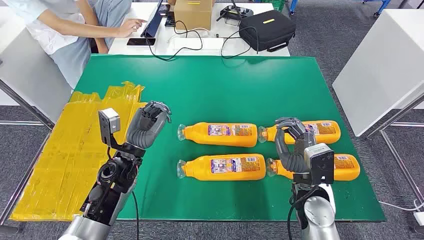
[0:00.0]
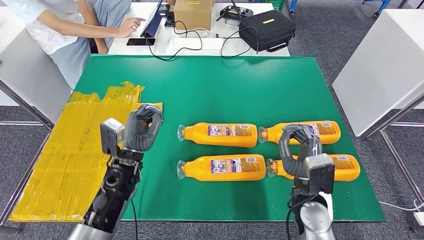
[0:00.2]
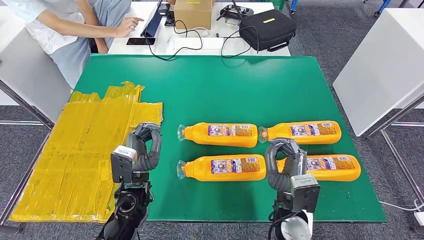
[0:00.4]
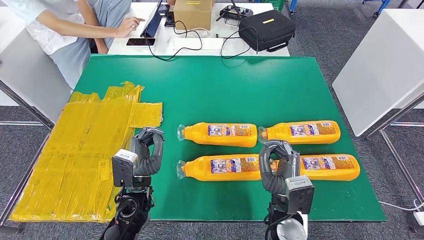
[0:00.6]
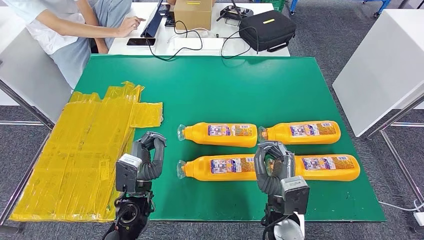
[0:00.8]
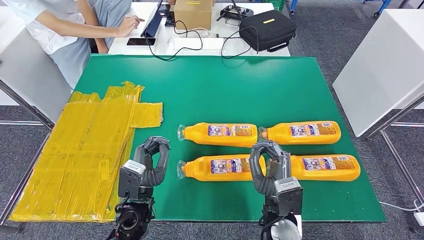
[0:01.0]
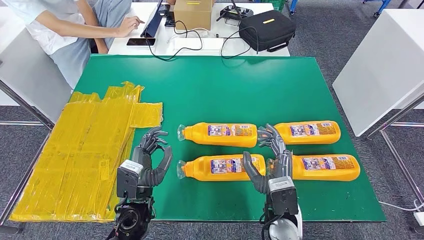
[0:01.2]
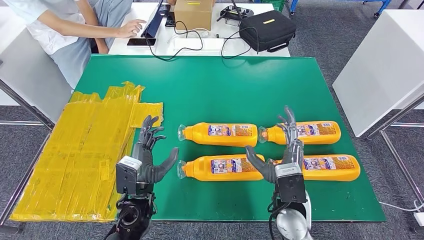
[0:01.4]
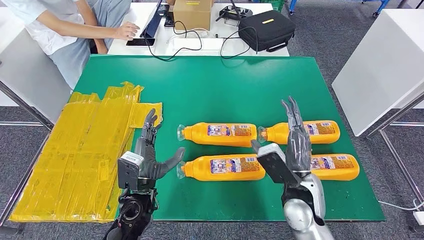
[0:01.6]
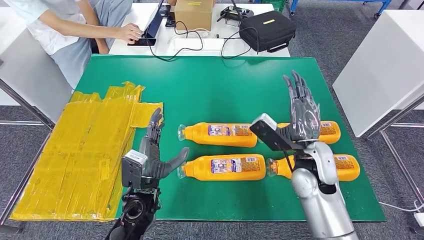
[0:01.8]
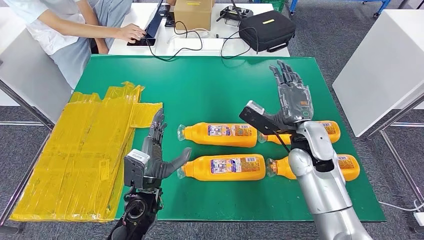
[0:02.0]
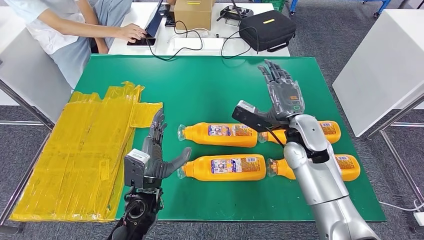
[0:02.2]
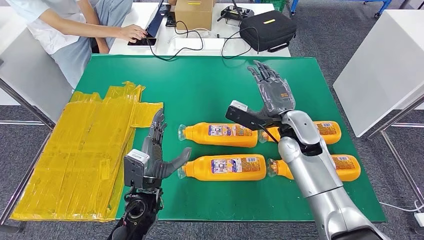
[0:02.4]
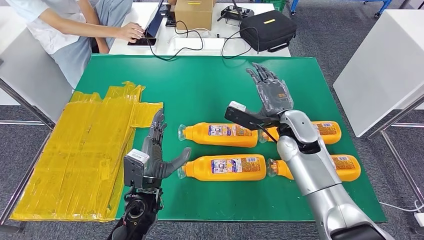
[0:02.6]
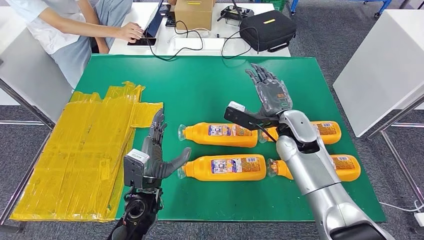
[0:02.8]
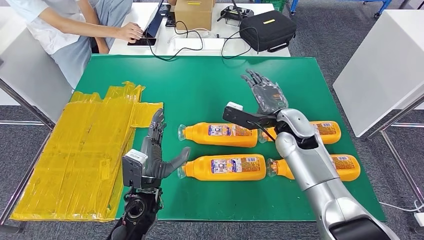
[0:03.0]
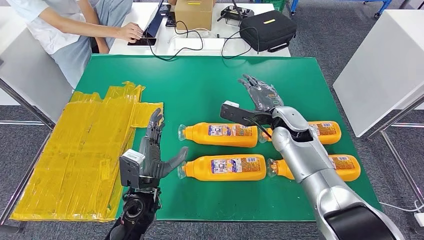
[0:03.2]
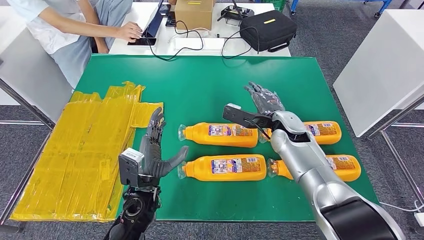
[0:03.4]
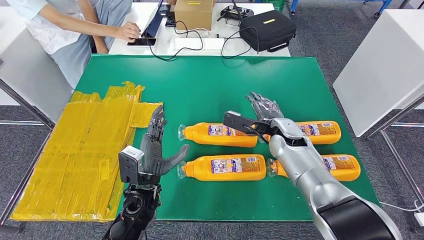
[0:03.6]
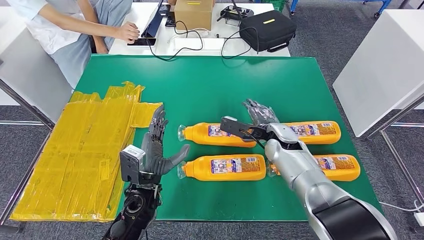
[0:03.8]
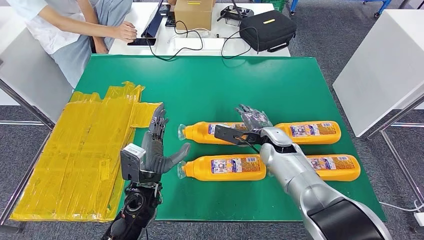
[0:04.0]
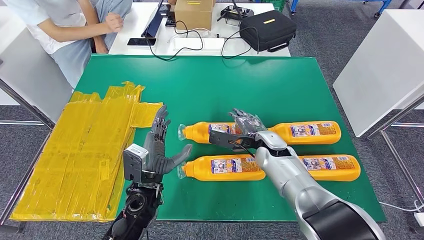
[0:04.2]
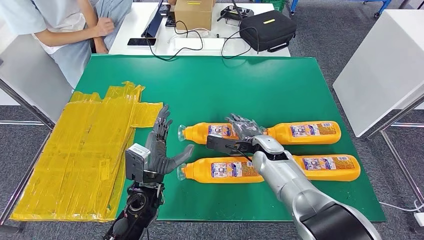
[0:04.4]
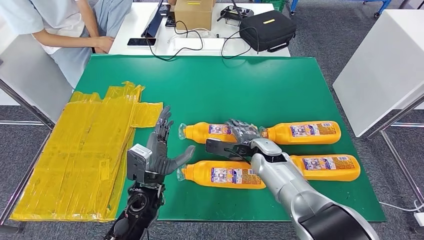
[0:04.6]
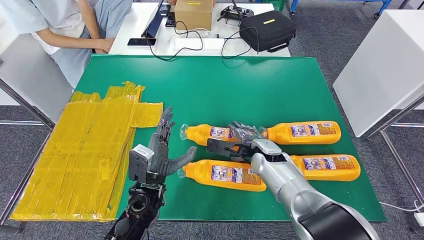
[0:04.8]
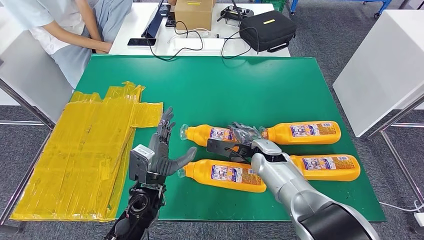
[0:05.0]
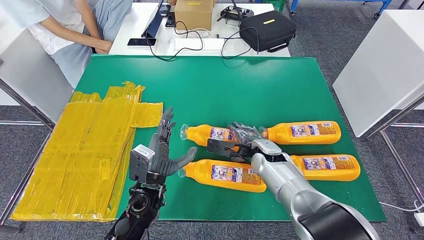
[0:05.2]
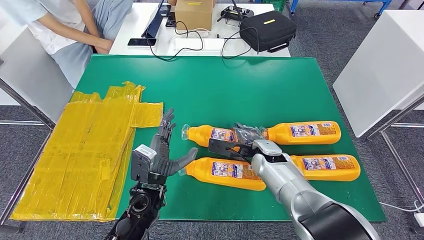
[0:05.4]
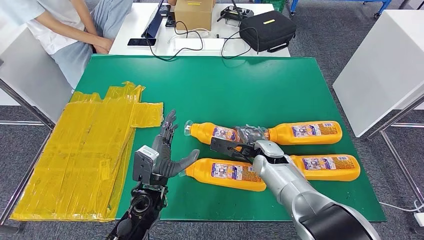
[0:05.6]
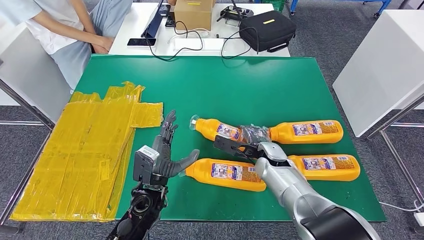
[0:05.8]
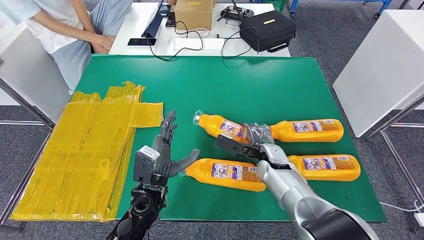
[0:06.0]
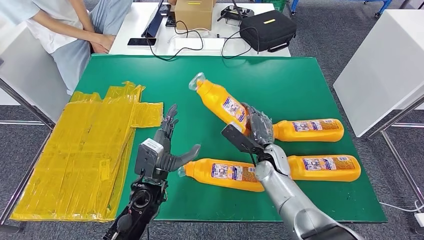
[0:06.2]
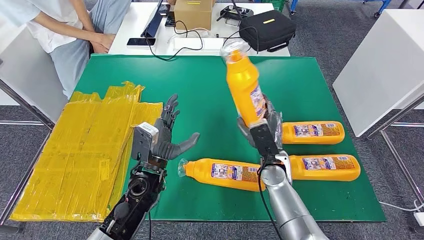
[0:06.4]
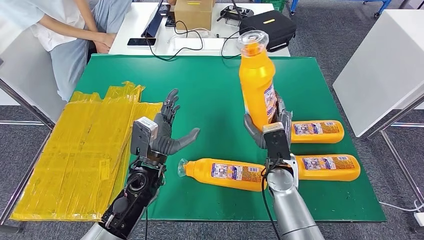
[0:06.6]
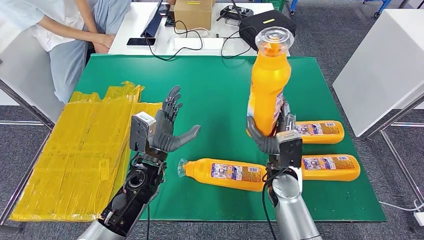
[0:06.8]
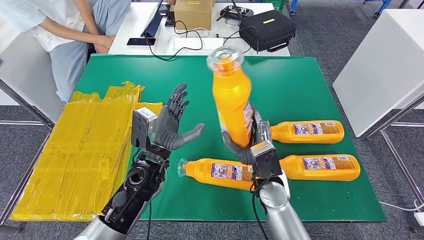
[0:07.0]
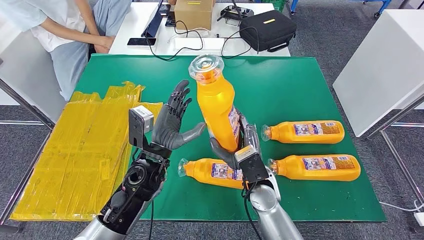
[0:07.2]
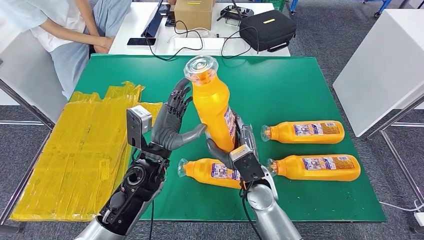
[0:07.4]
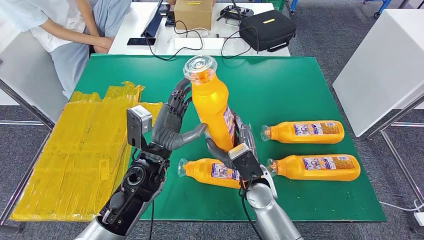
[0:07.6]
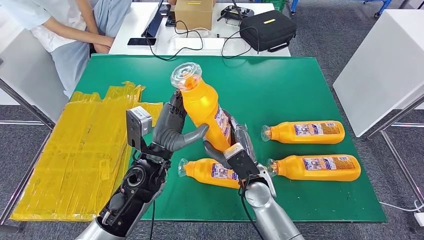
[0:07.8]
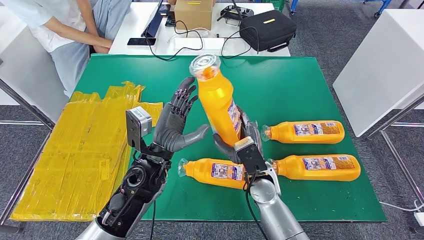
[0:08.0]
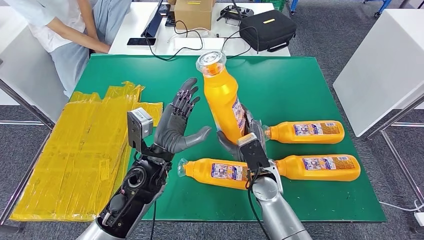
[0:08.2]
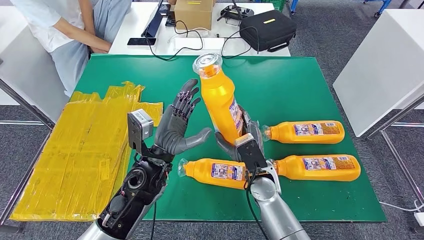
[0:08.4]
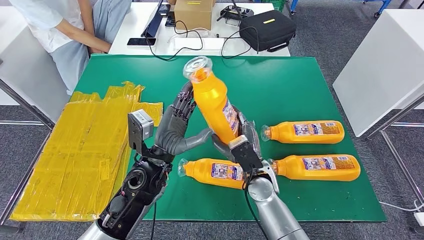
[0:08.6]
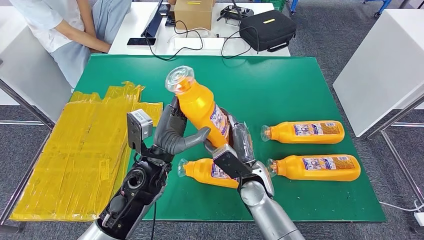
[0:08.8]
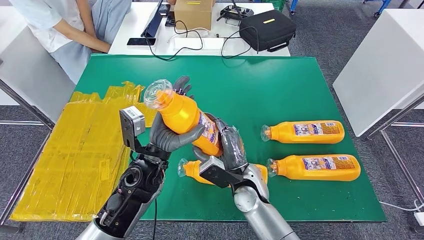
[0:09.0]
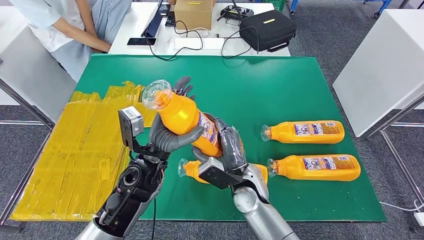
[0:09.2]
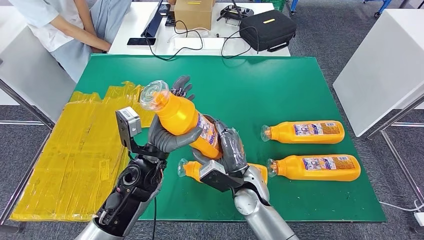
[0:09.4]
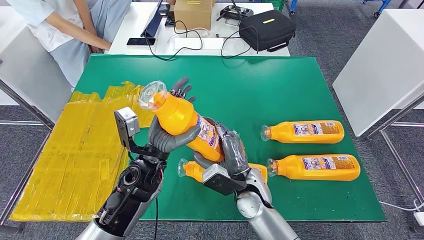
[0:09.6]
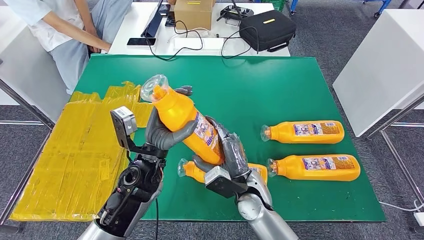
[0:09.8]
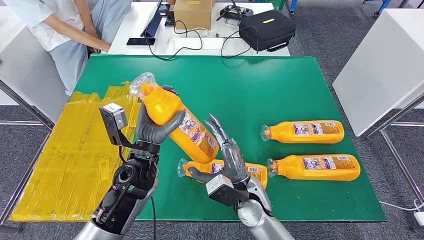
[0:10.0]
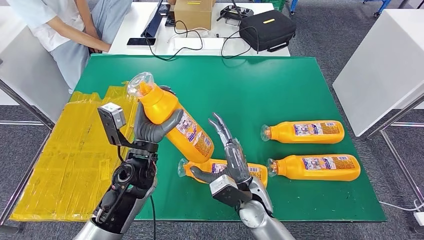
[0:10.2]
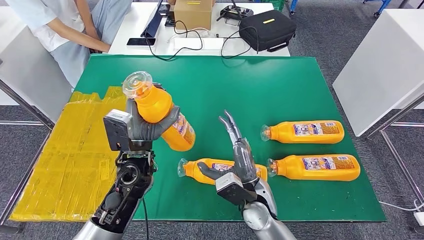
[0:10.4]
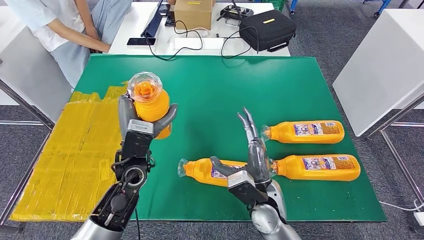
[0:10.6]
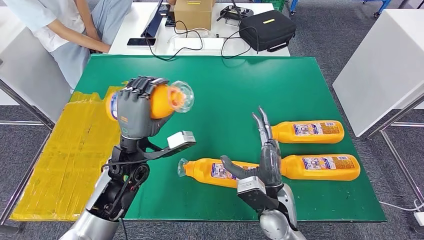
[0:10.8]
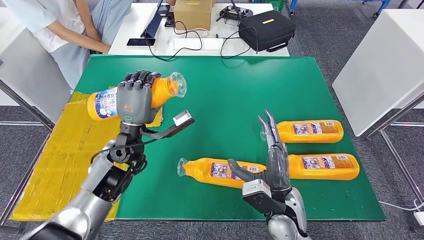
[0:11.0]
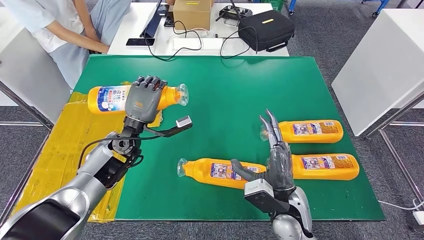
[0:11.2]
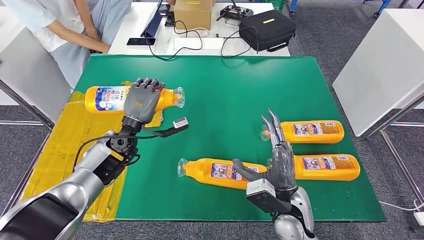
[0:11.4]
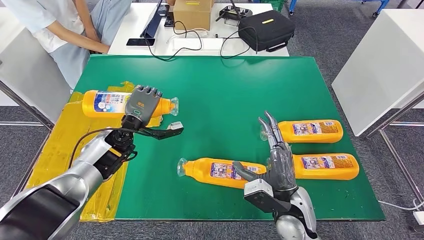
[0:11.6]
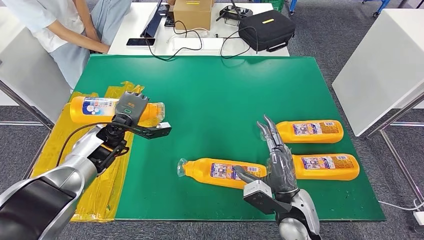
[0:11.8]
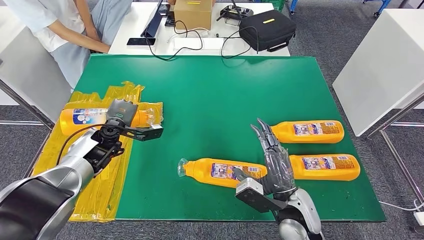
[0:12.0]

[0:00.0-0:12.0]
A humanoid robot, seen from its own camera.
Step, 0:00.0 to 0:06.6: Take the bottle from the table.
0:01.6 to 0:03.0: The right hand goes roughly 15 cm forward.
0:03.0 to 0:04.4: The right hand is displaced downward by some 10 cm.
0:04.4 to 0:06.0: The hands move only a little.
0:06.0 to 0:07.6: The right hand goes about 10 cm backward and to the left. The left hand goes about 10 cm upward.
0:07.6 to 0:09.0: The hands make only small movements.

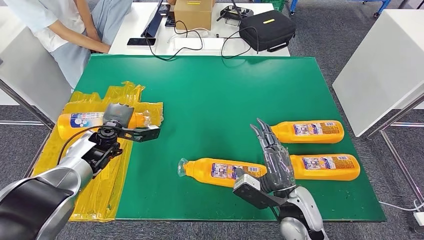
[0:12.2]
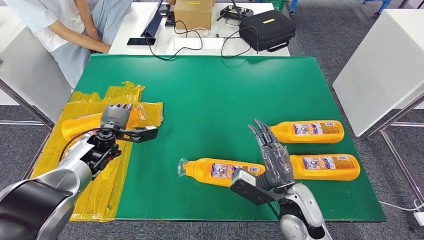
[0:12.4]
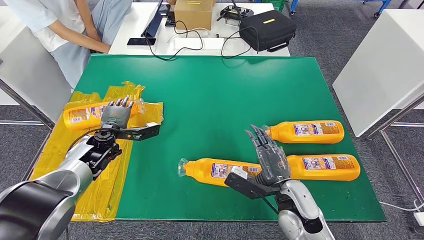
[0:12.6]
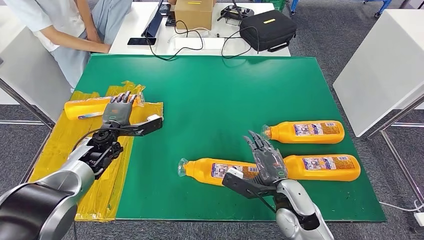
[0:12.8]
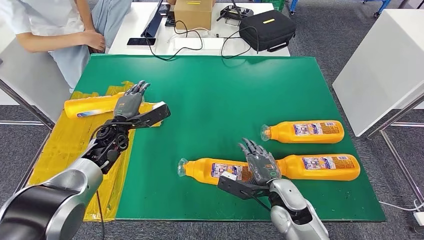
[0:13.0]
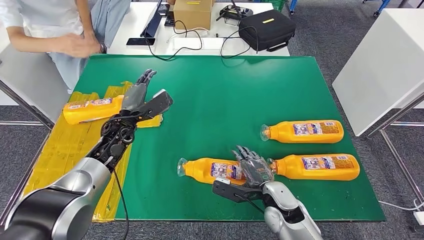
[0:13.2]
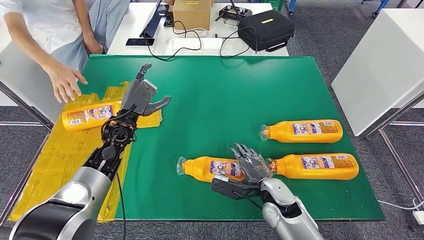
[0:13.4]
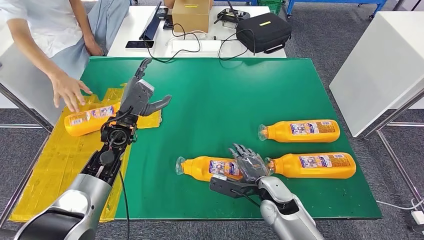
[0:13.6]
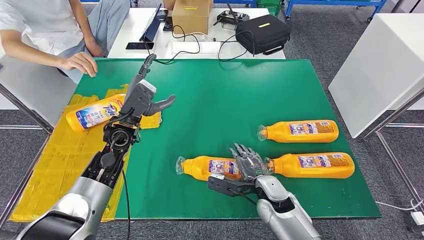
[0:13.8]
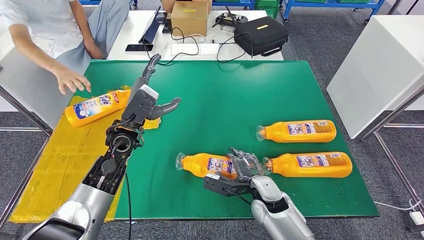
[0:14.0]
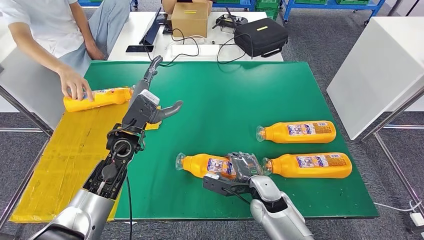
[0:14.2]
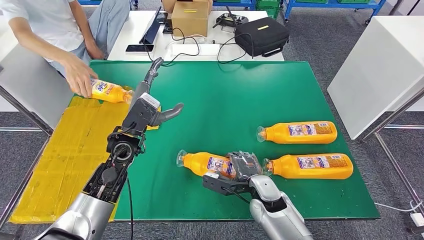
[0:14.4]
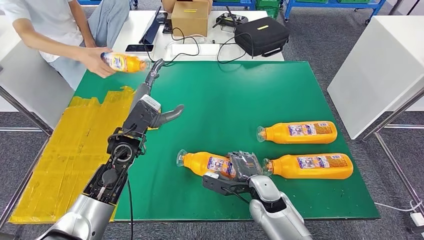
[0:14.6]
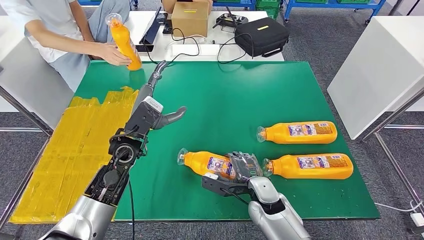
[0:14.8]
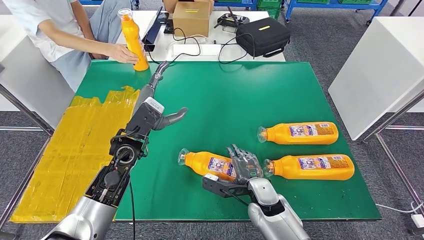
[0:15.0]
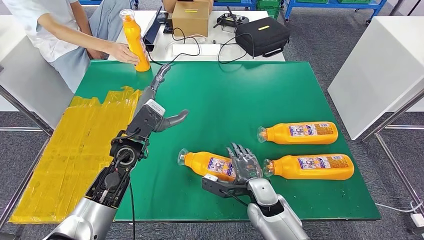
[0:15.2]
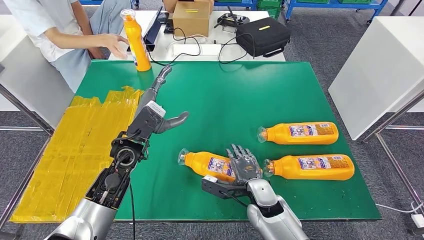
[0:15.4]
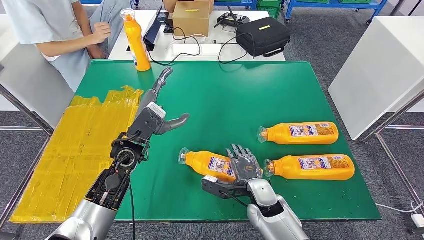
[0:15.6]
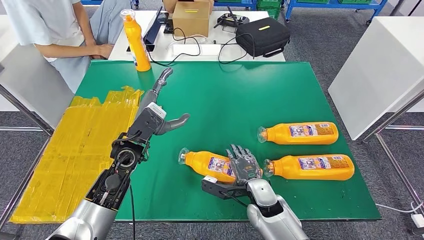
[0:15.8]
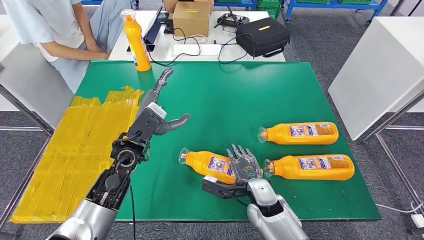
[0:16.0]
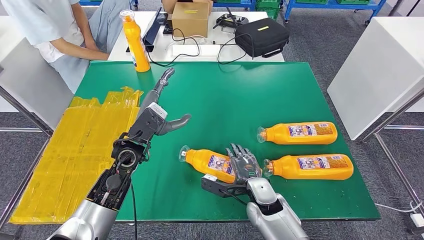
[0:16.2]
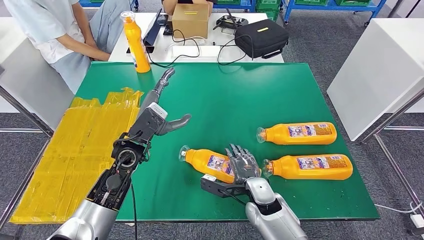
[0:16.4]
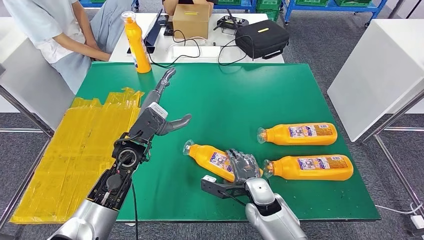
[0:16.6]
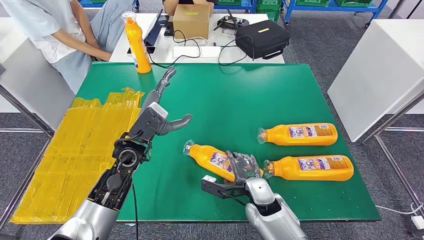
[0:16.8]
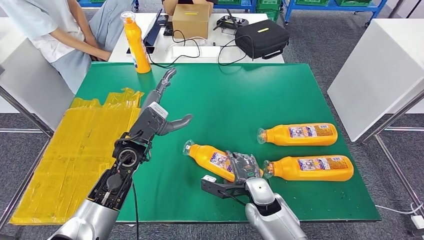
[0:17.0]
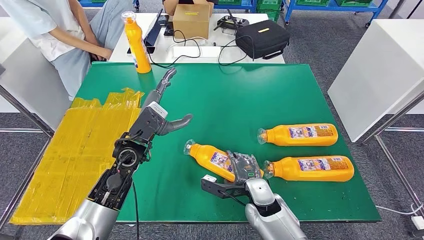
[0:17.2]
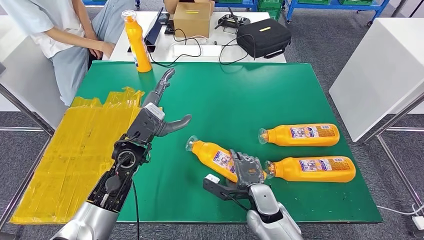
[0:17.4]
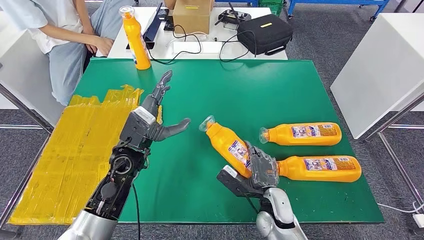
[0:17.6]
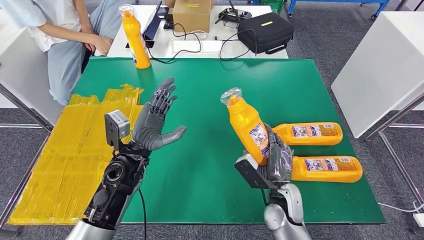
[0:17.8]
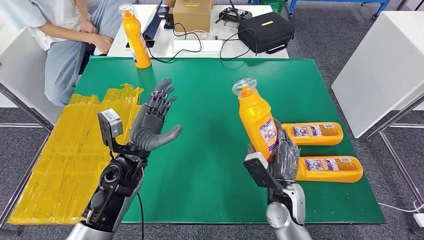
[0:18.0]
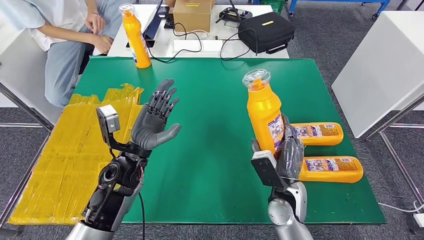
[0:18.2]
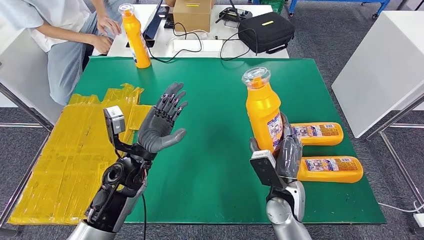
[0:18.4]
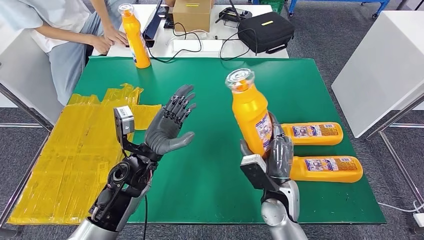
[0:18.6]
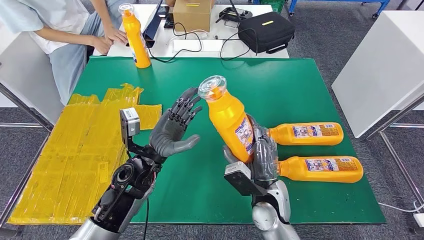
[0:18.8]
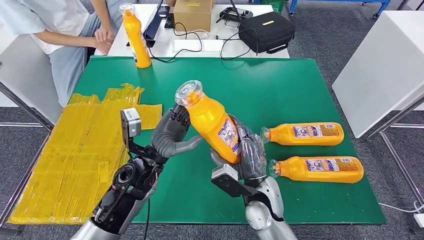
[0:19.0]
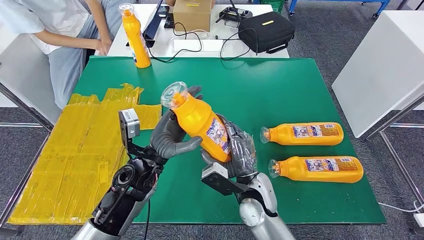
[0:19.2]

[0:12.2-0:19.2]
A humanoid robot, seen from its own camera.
Step, 0:12.4 to 0:18.8: Pick up the bottle from the table.
0:15.0 to 0:16.4: Both hands stay put.
